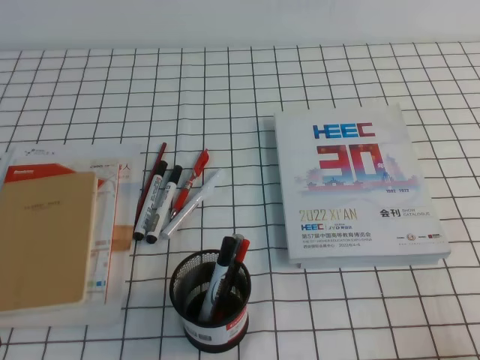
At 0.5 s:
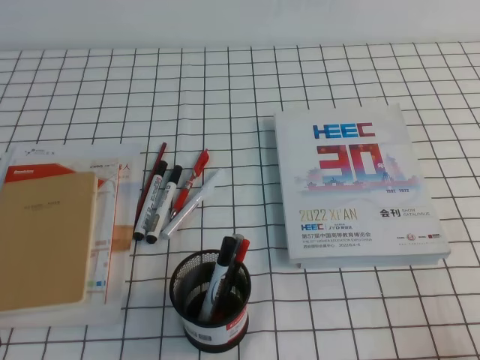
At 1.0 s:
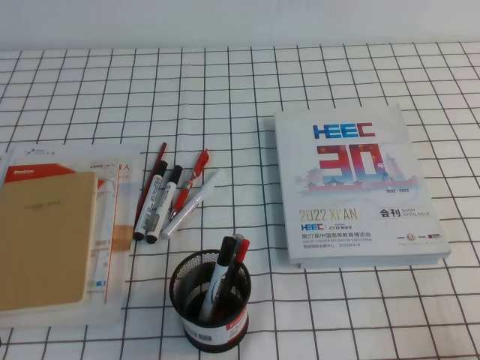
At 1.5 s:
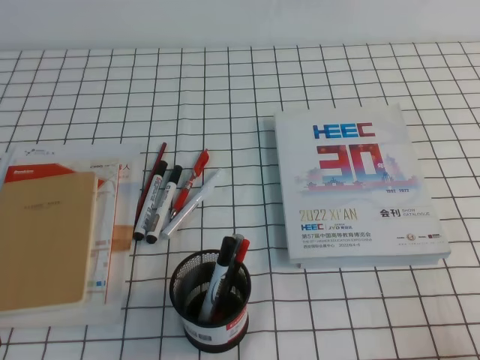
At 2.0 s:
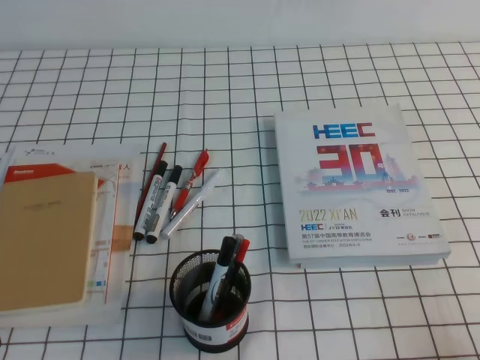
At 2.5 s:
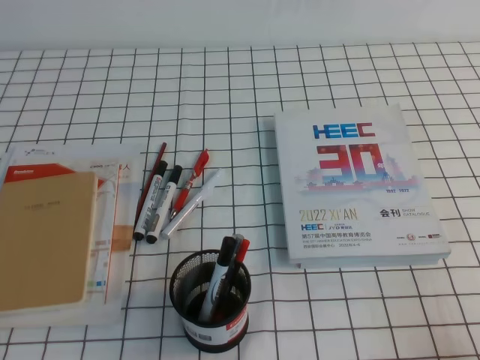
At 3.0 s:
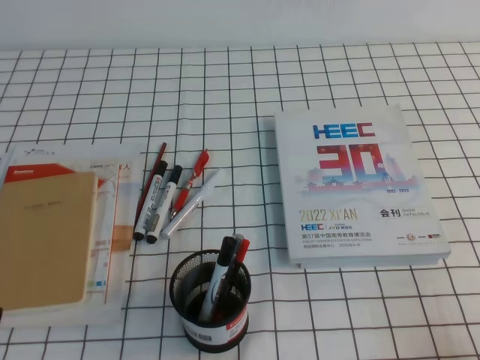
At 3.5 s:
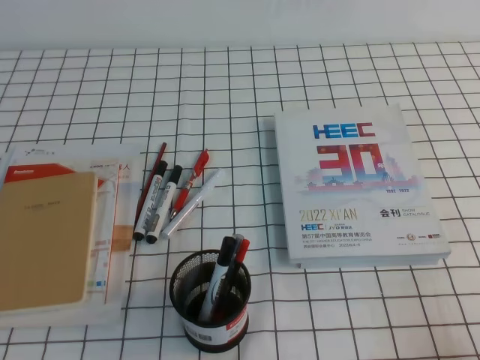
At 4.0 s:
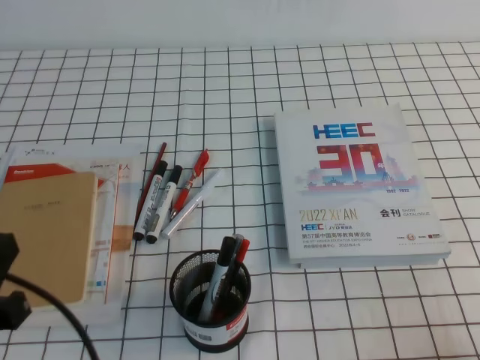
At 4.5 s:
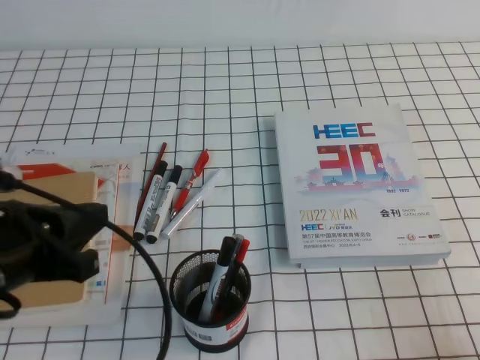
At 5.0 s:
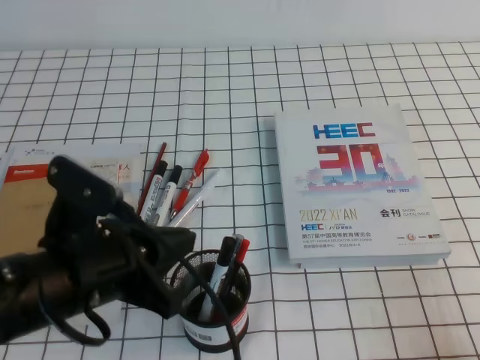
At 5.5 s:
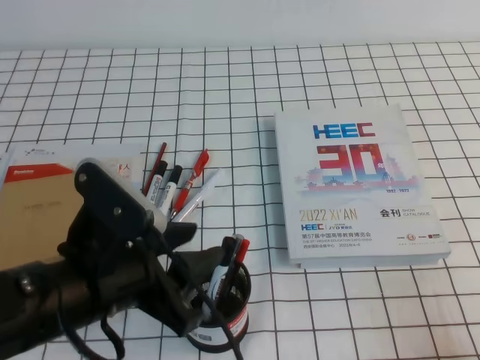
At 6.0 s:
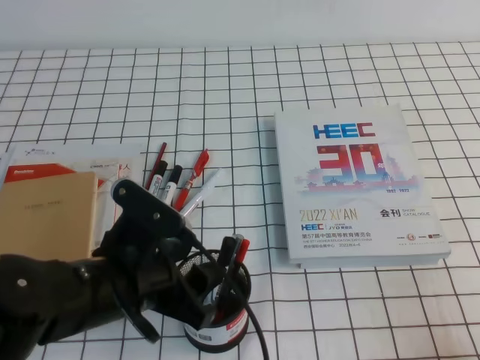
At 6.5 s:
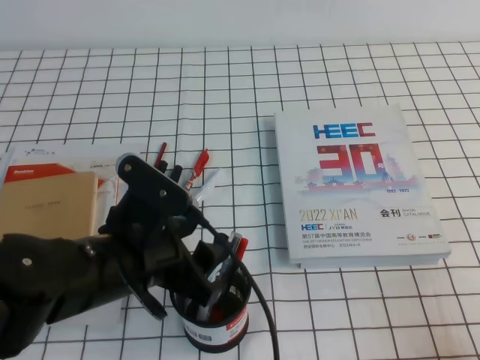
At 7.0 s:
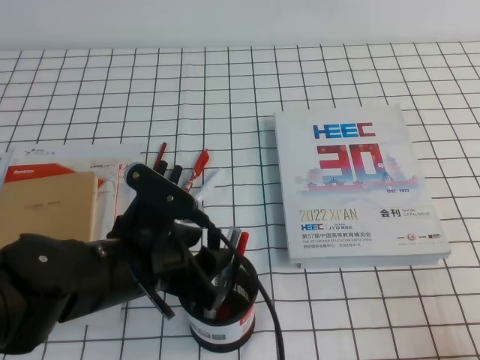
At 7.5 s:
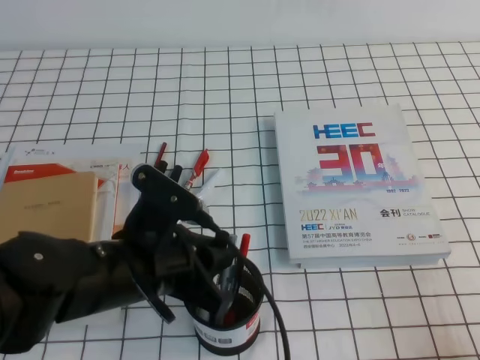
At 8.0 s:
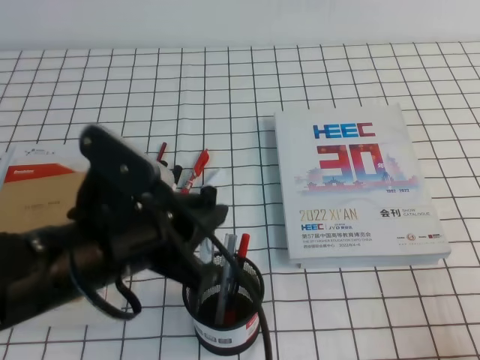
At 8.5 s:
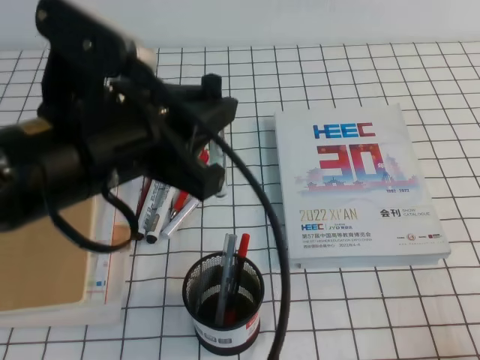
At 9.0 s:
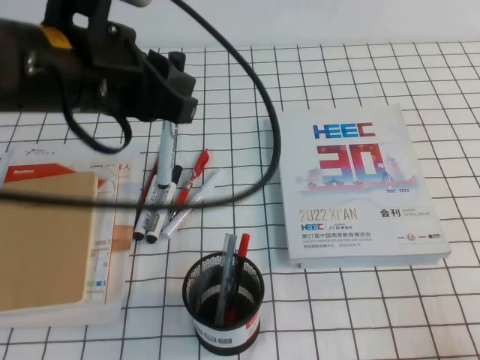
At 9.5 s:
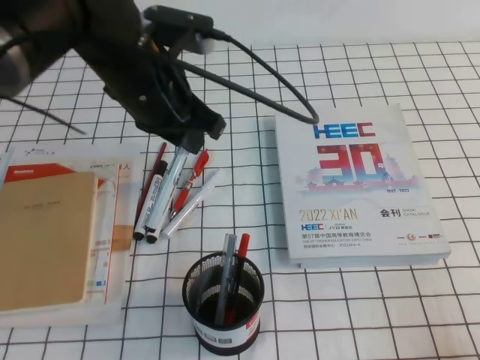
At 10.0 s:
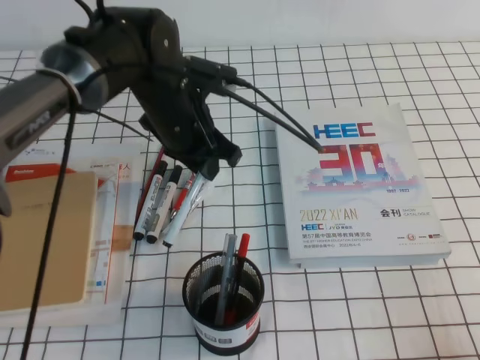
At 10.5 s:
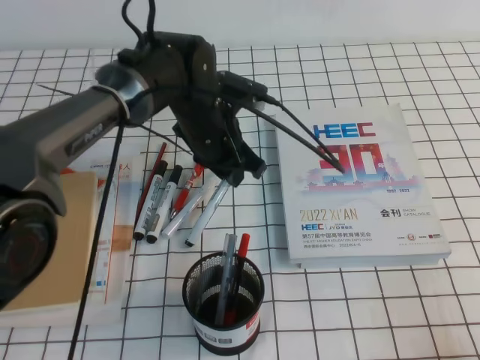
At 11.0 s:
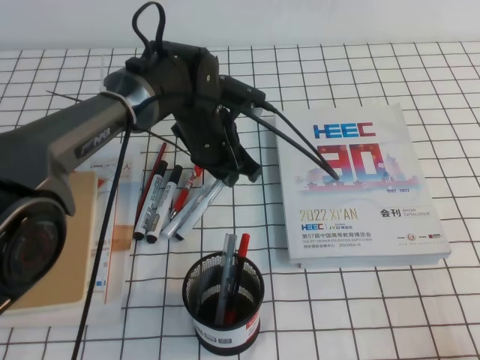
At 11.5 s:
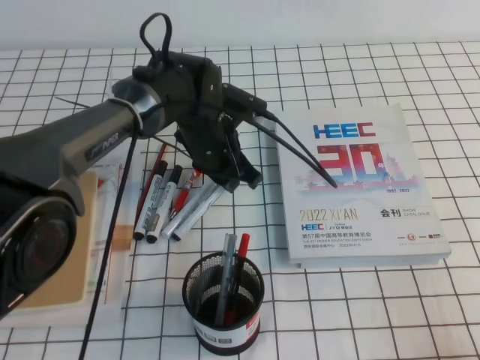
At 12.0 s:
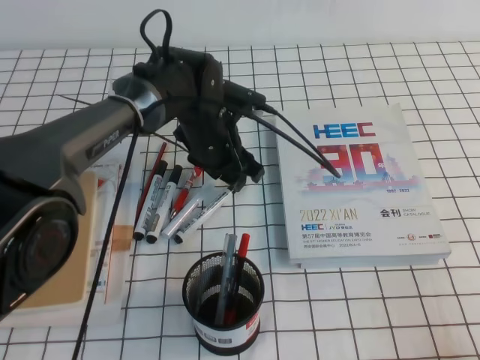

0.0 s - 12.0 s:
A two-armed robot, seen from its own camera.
0.0 s - 2.0 s: Neither gripper changes place.
2.0 s - 4.0 s: The left gripper is displaced upward by some 10 cm.
4.0 s - 6.0 s: The left gripper travels to the right, forward and downward by some 15 cm, and opens up.
6.0 s - 8.0 s: The left gripper heads upward, covering roughly 5 cm, and closes its fingers.
8.0 s - 10.0 s: The left gripper goes roughly 20 cm forward.
10.0 s - 12.0 s: The left gripper moves downward, approximately 5 cm, and opens its fingers.

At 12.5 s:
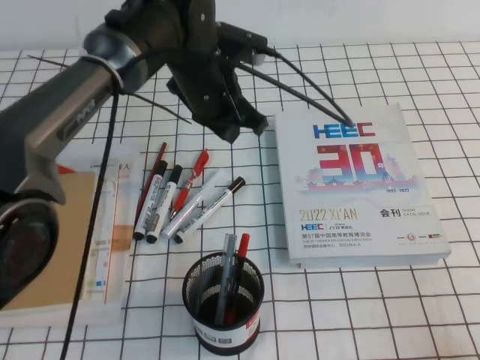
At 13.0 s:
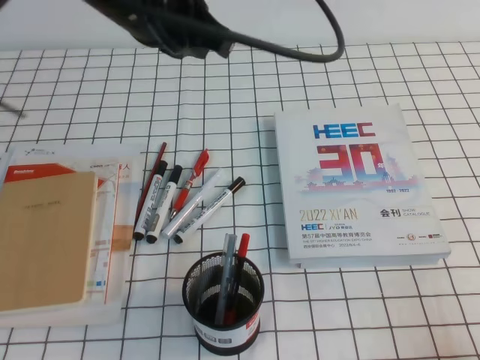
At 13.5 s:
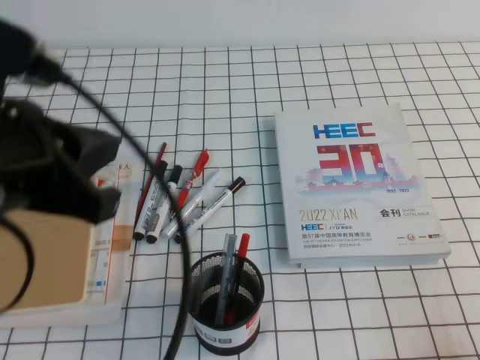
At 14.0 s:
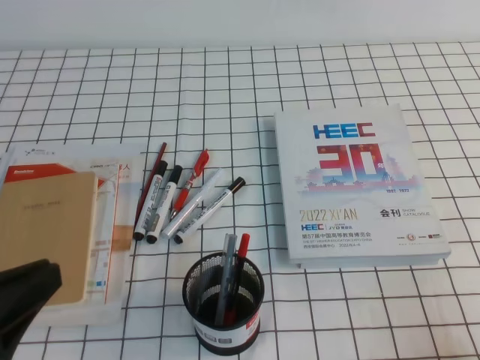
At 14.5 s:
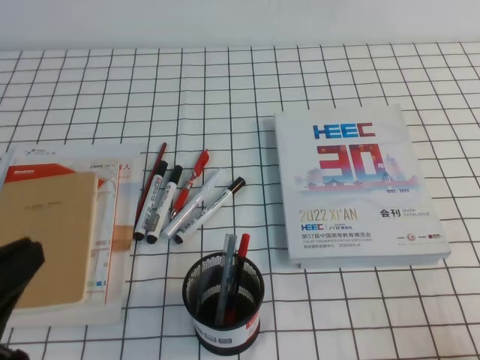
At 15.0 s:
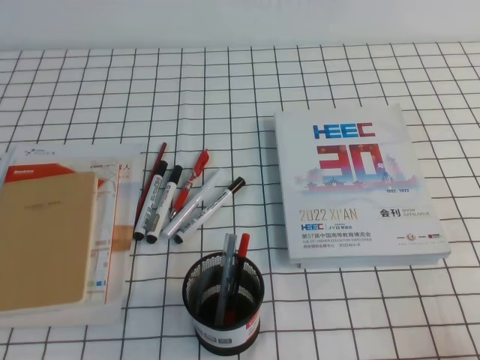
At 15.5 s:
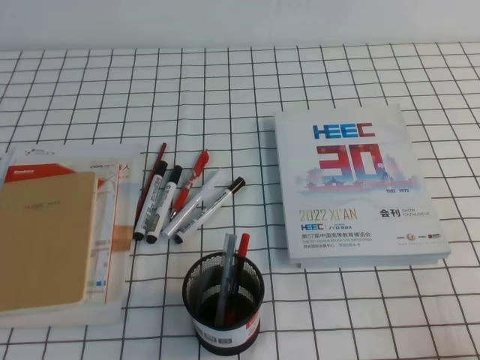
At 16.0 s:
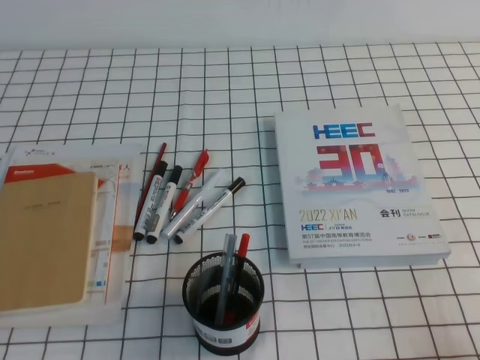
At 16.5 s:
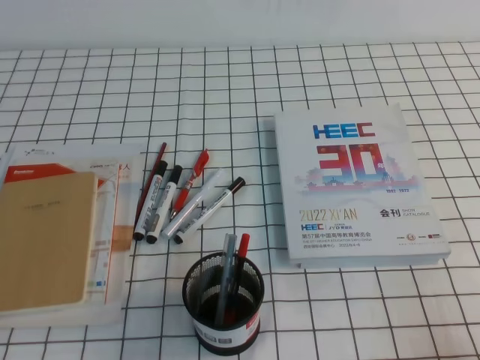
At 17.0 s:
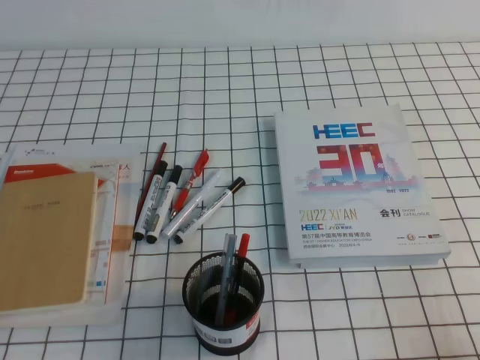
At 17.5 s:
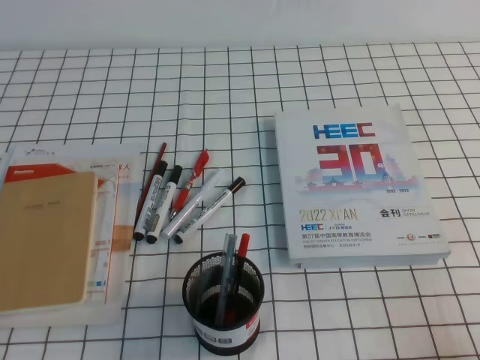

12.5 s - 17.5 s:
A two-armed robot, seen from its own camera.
Step, 12.5 s - 17.5 s: Pick up the pen from the pen holder.
12.5 s - 15.0 s: The left gripper goes roughly 40 cm backward and to the left.
